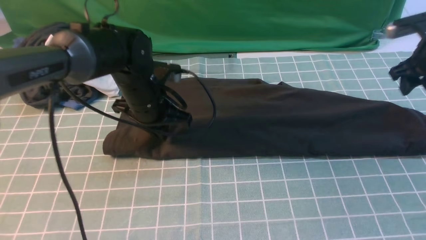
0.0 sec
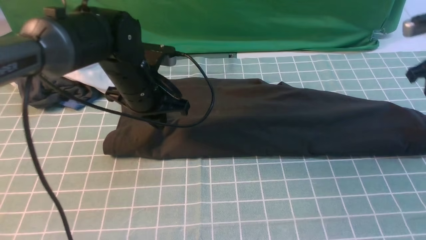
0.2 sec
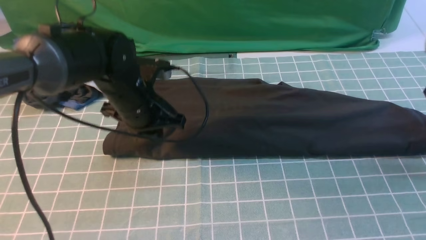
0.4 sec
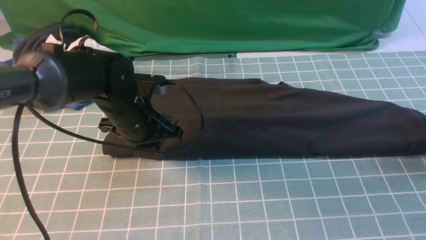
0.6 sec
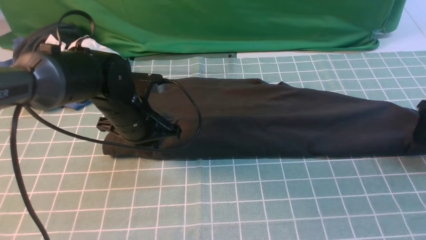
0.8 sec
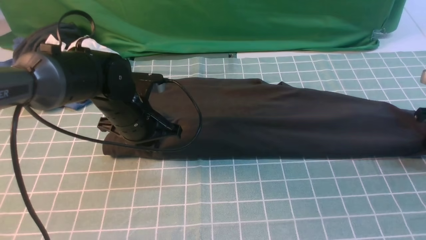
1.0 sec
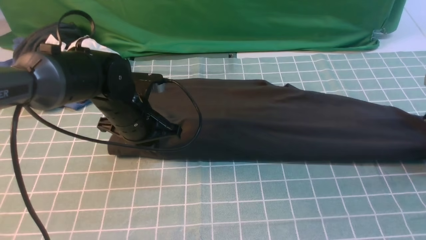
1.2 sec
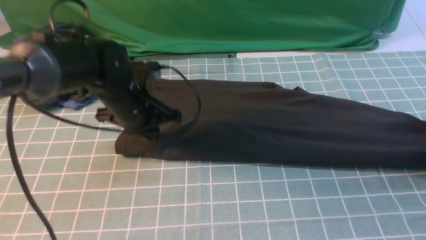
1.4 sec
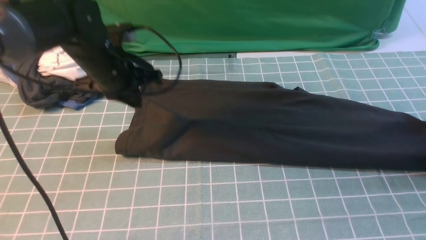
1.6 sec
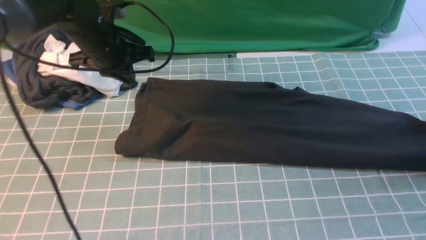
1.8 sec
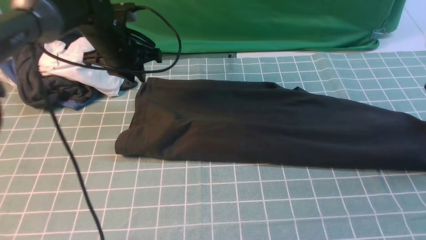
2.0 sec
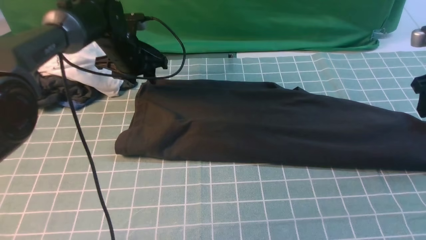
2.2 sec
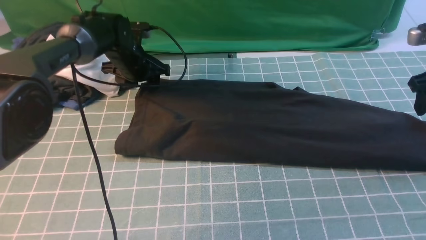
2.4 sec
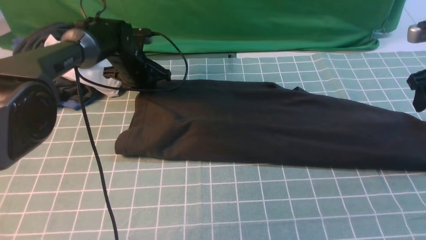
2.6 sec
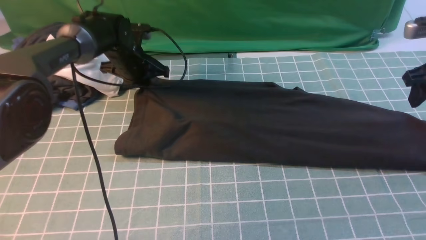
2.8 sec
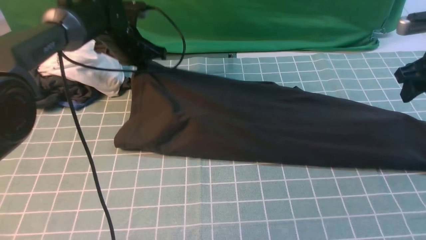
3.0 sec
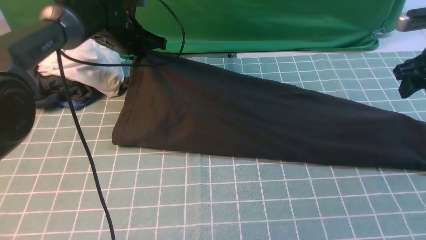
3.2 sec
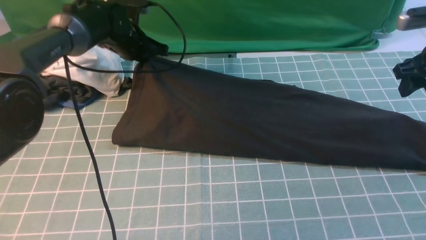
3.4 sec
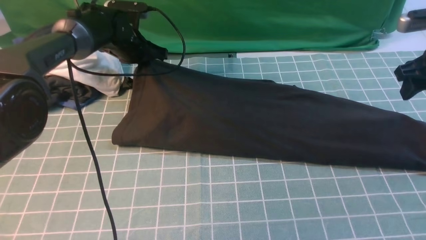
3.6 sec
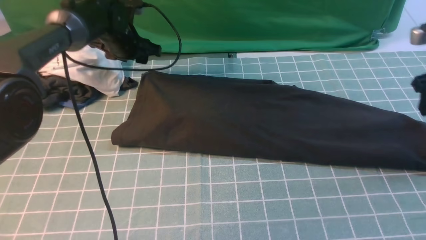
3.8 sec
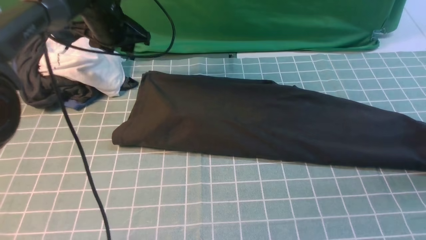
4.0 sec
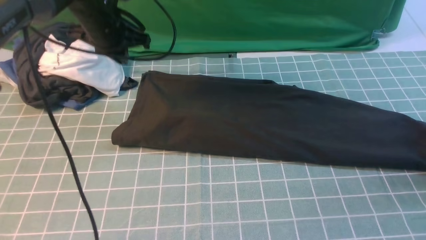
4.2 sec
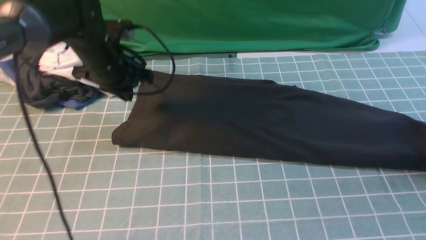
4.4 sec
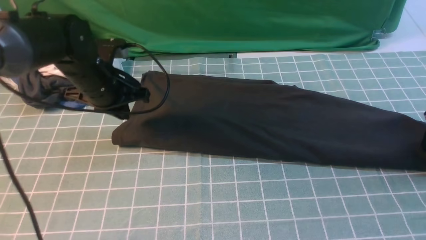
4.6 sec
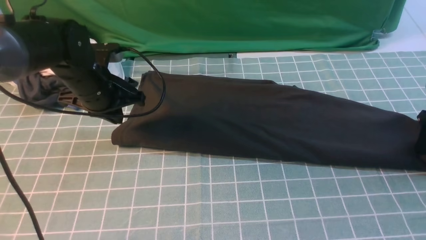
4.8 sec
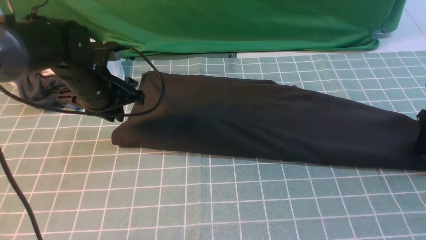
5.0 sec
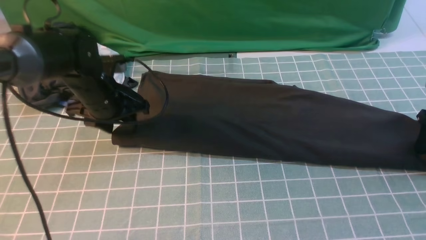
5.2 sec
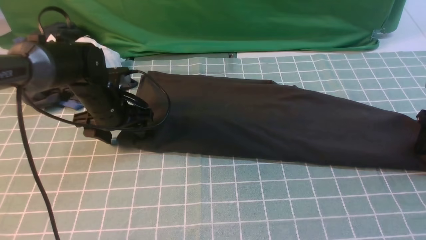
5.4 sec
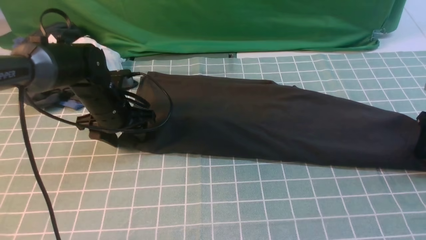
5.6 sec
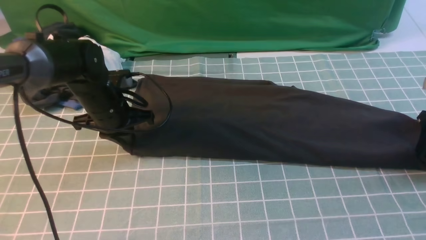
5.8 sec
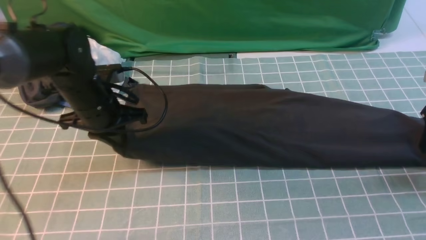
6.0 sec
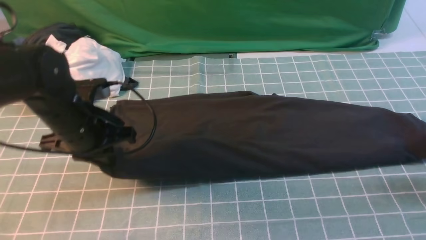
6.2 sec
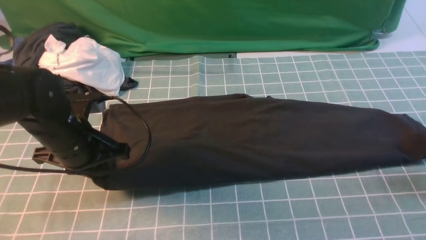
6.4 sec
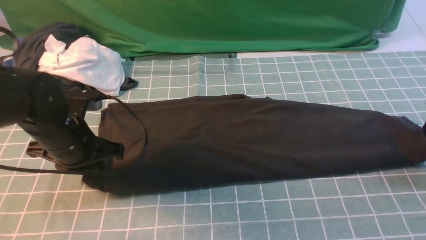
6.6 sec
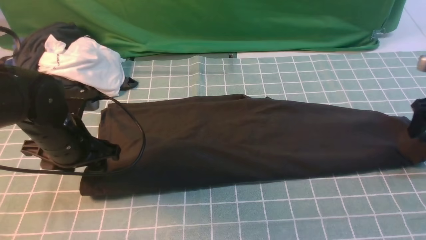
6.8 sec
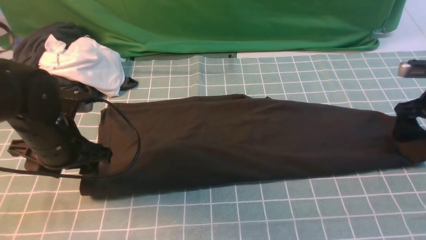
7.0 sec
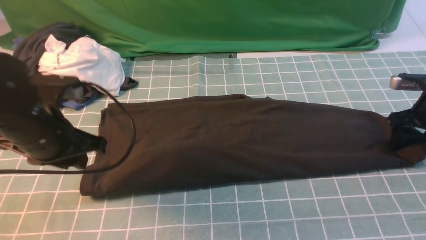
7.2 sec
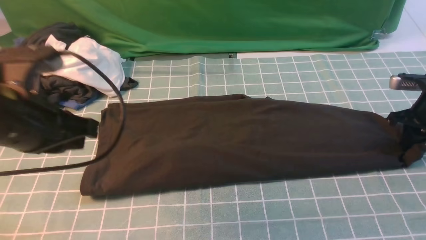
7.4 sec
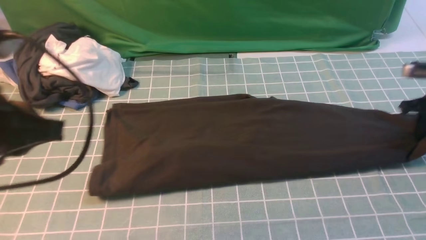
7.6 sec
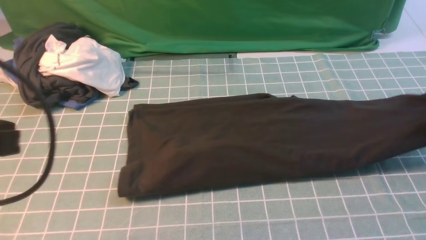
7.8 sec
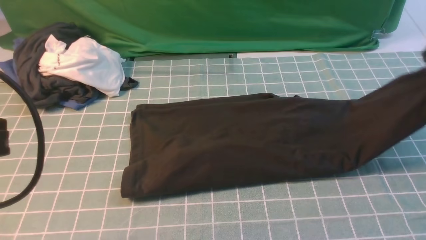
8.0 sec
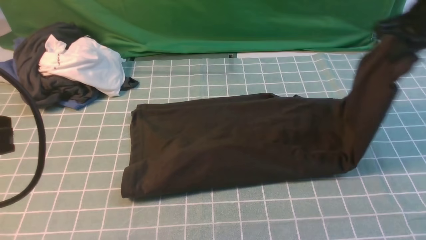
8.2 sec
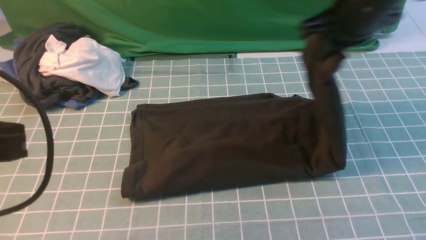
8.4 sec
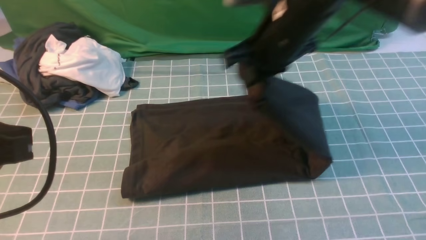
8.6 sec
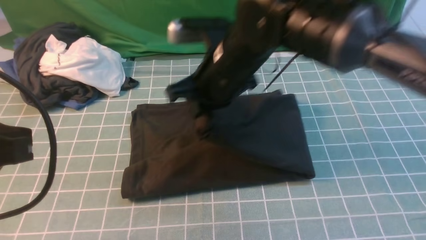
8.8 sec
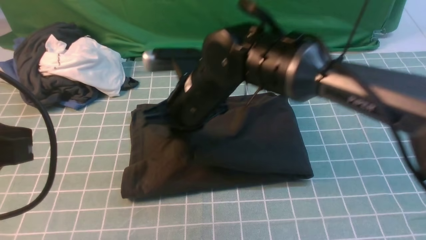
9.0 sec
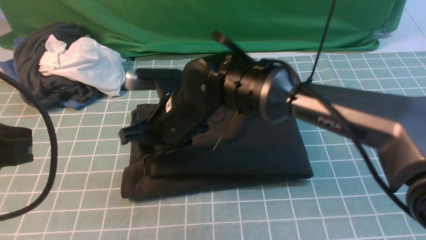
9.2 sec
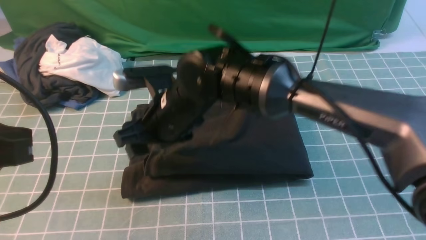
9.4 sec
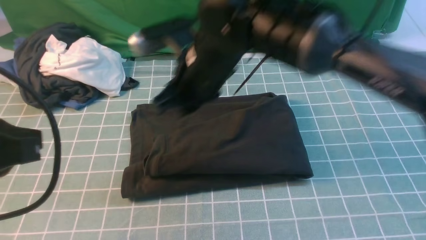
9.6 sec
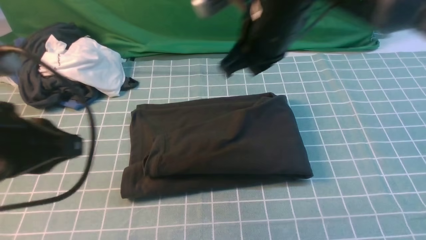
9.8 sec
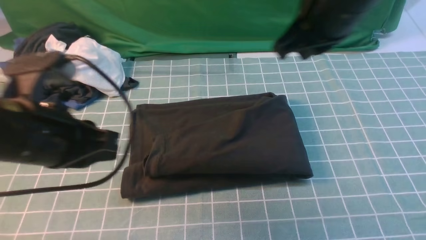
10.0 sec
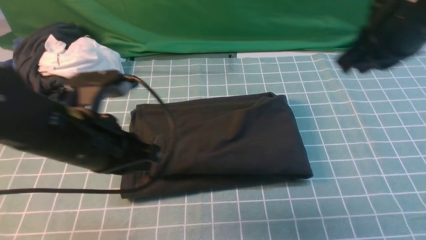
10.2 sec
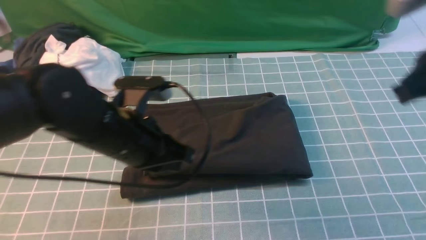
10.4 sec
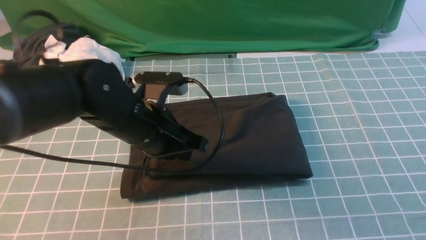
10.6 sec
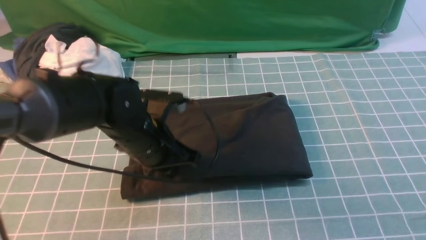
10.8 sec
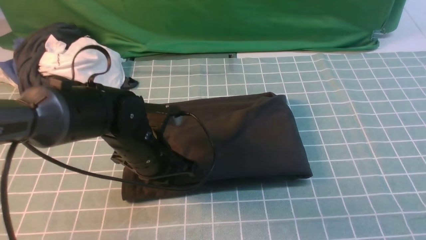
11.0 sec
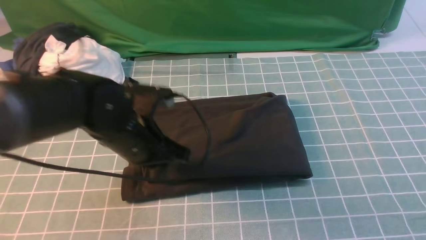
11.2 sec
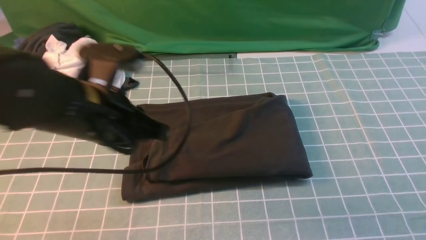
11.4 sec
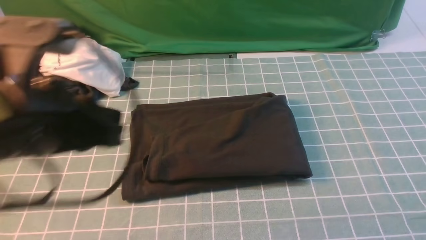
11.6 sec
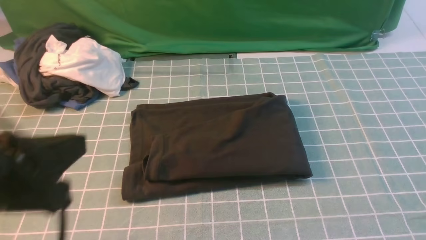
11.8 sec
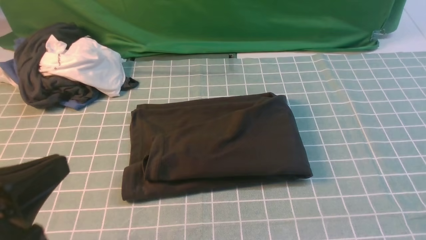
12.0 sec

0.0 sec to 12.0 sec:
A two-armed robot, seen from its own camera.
Step, 0.0 sec to 7.6 sec: use the right arm to clamp the right edge of the fabric.
Step, 7.8 sec to 9.6 sec: use the right arm to drag the right edge of the fabric to the left and folds it over the left edge.
0.0 sec to 1.6 sec: The right gripper is displaced backward and to the right by roughly 10 cm; the left gripper moves about 5 cm.
1.6 sec to 3.0 sec: The left gripper travels forward by about 10 cm, and opens and closes again. The right gripper shifts some 10 cm to the left and upward.
3.0 sec to 4.4 sec: The left gripper travels backward by roughly 10 cm, and opens, then closes once more. The right gripper moves to the right and downward, roughly 10 cm.
4.4 sec to 6.0 sec: The left gripper shifts approximately 10 cm backward, and opens and closes again.
6.0 sec to 7.6 sec: The left gripper heads backward and upward, covering about 25 cm, and opens, then closes once more. Meanwhile the right gripper closes.
7.6 sec to 9.0 sec: The right gripper shifts approximately 40 cm to the left.
9.0 sec to 10.4 sec: The right gripper goes some 30 cm to the right and upward, while the left gripper heads forward, downward and to the right, covering some 20 cm.
10.4 sec to 12.0 sec: The left gripper is displaced backward and to the left by roughly 20 cm. The right gripper goes some 25 cm backward and to the right.

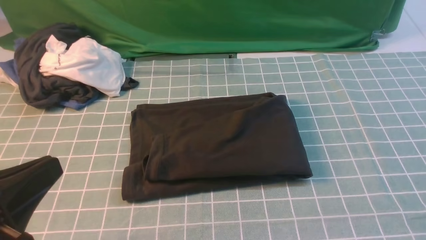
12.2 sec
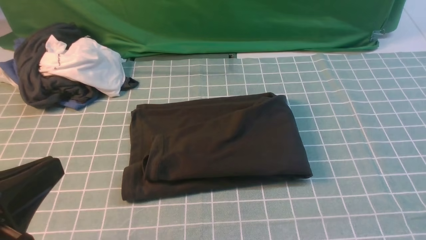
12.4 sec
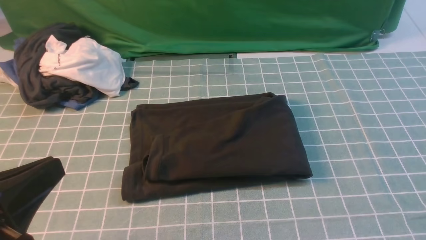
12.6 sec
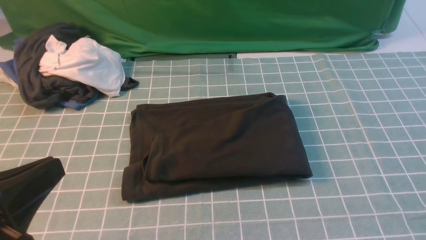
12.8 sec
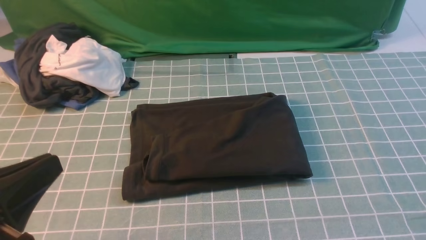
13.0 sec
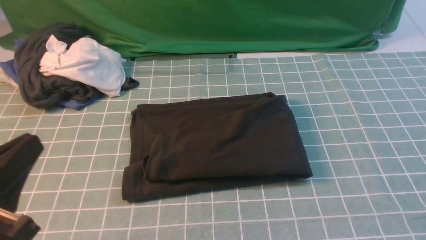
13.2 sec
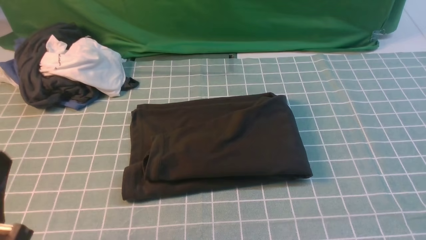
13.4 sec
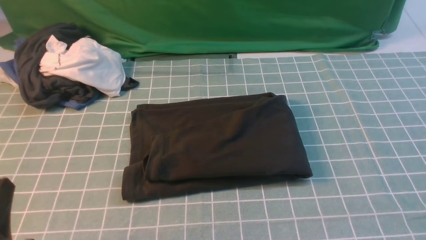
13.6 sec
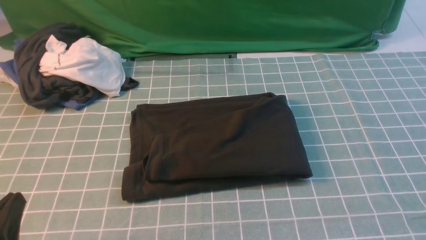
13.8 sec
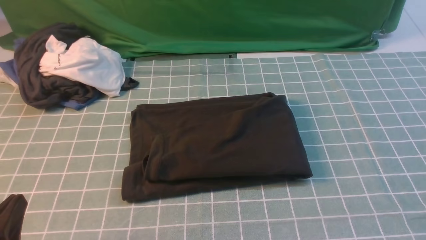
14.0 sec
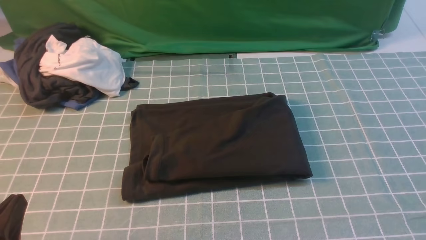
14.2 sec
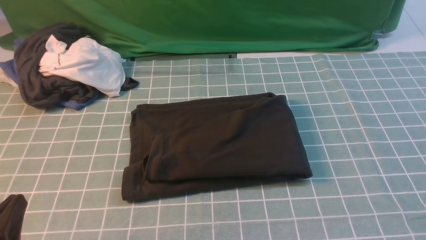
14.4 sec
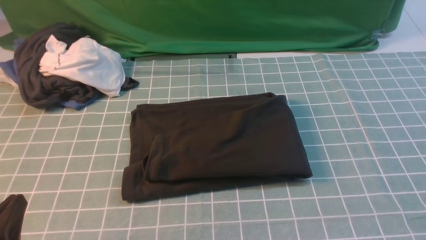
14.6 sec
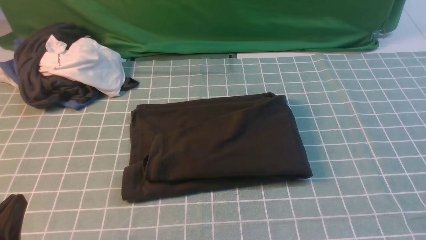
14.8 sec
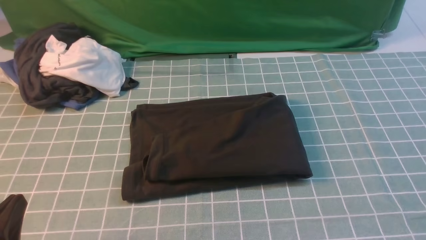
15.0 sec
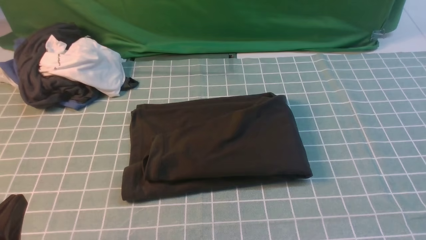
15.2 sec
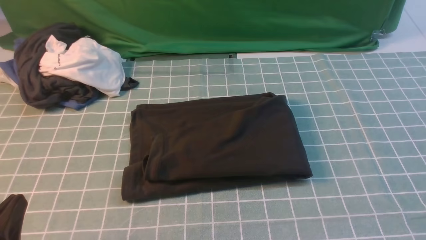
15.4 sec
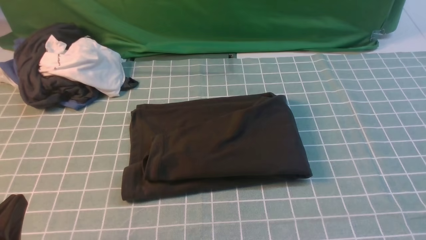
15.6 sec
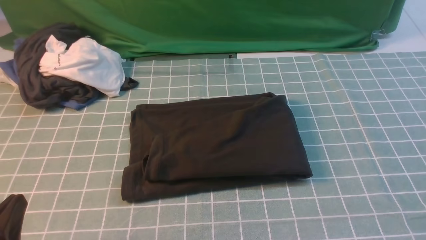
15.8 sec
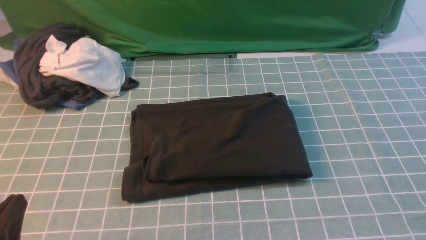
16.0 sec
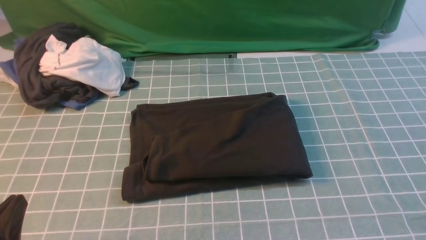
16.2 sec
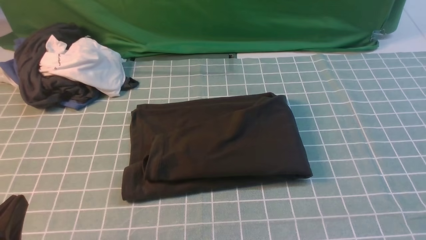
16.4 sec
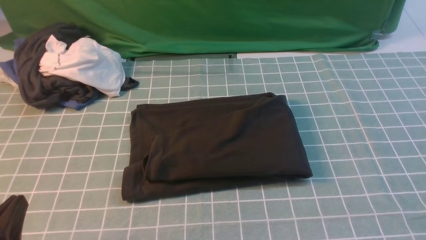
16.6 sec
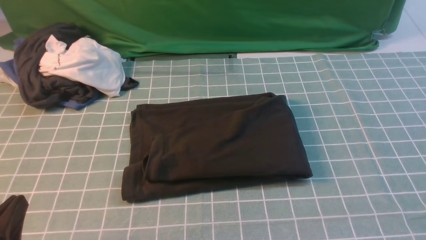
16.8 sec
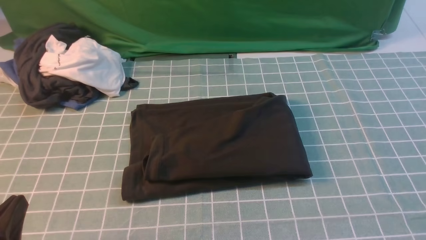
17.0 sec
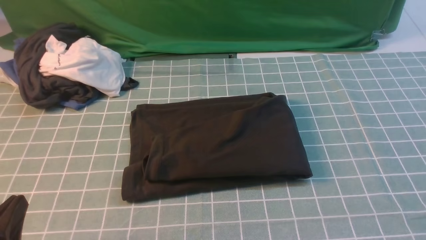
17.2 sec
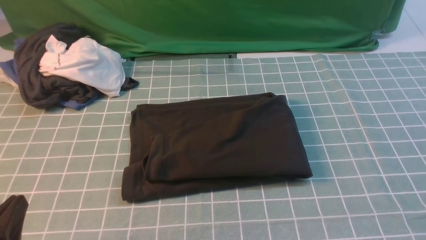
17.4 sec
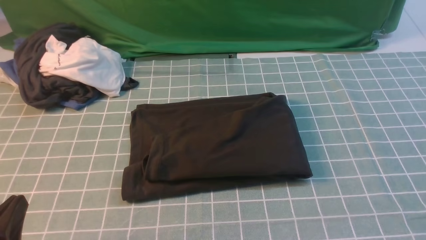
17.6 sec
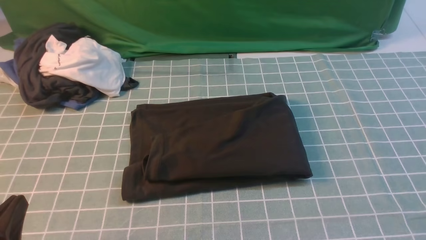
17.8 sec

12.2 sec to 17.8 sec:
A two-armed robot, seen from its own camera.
12.2 sec to 13.6 sec: The left gripper goes about 10 cm downward.
13.6 sec to 15.0 sec: The grippers make only small movements.
16.4 sec to 17.8 sec: Both grippers stay put.
